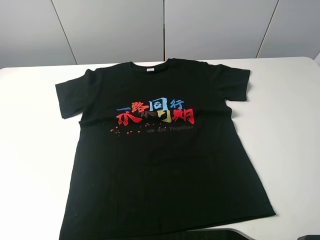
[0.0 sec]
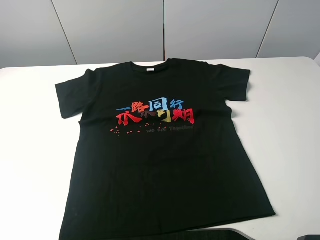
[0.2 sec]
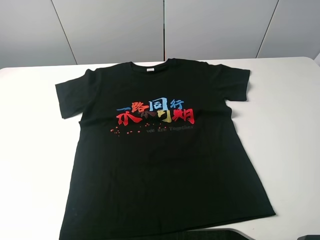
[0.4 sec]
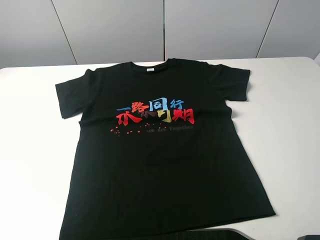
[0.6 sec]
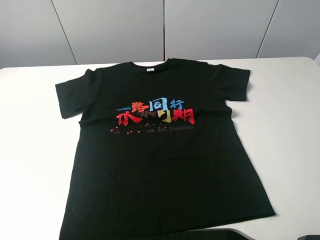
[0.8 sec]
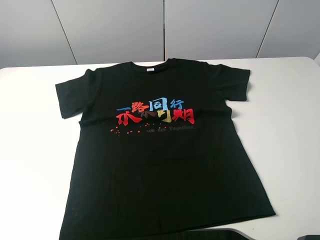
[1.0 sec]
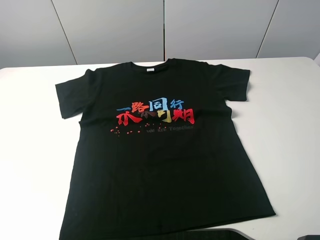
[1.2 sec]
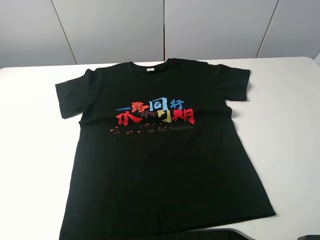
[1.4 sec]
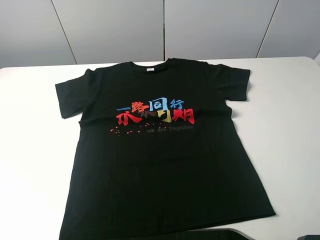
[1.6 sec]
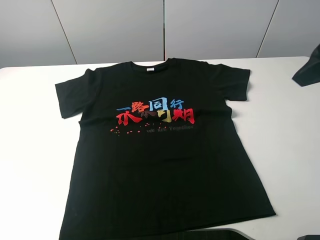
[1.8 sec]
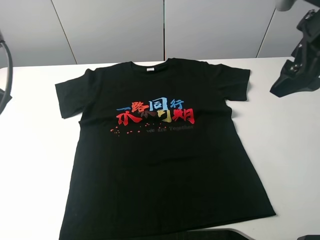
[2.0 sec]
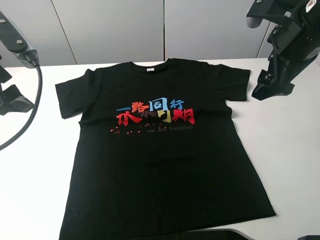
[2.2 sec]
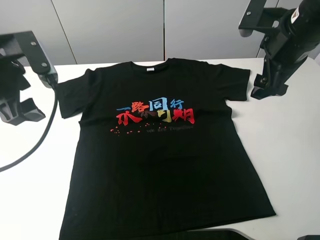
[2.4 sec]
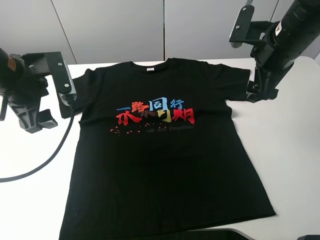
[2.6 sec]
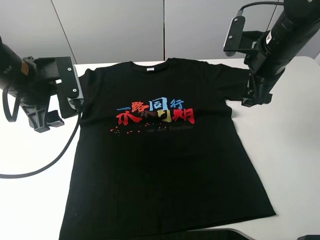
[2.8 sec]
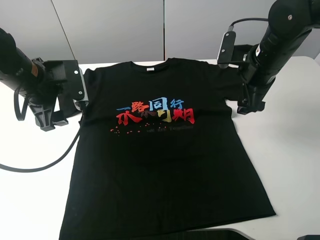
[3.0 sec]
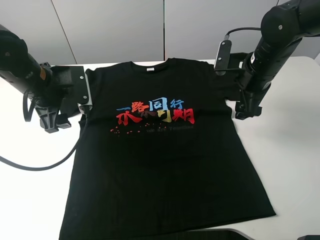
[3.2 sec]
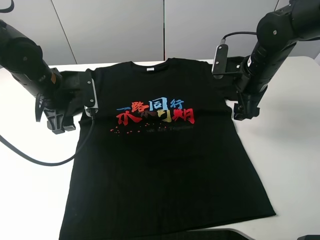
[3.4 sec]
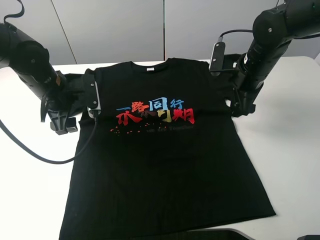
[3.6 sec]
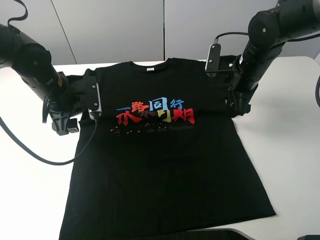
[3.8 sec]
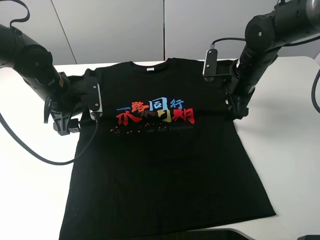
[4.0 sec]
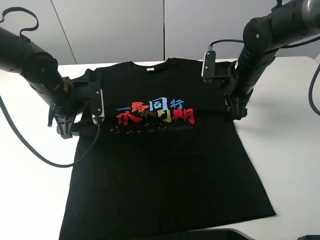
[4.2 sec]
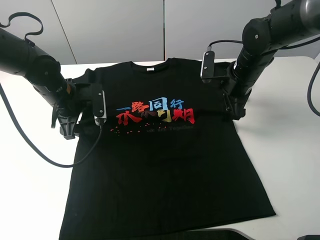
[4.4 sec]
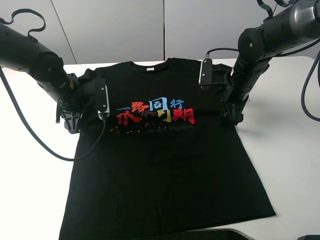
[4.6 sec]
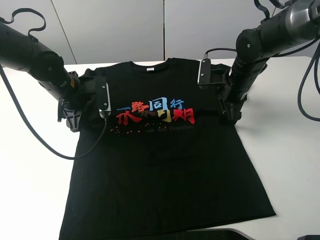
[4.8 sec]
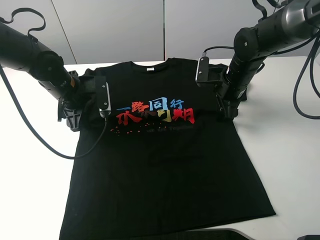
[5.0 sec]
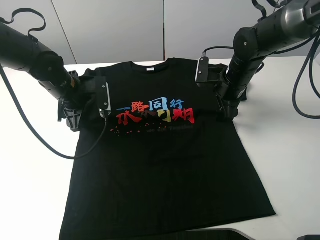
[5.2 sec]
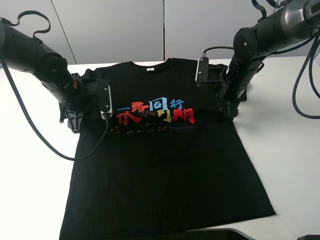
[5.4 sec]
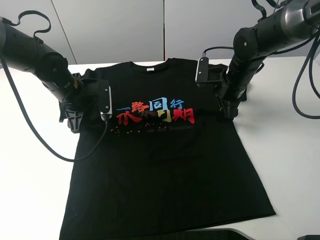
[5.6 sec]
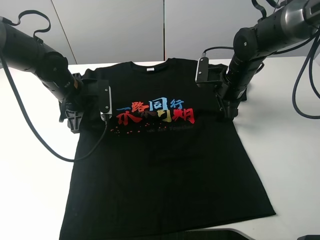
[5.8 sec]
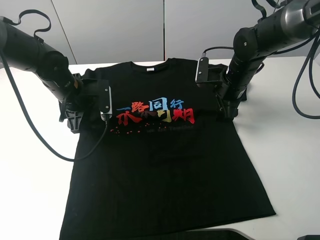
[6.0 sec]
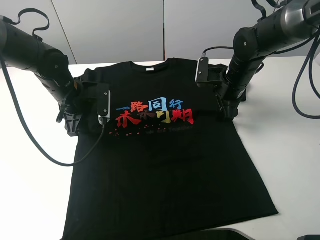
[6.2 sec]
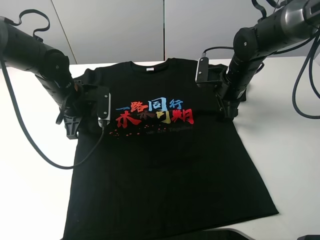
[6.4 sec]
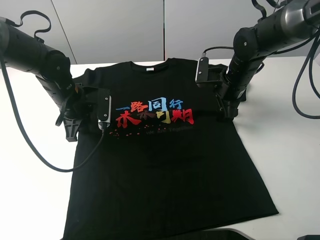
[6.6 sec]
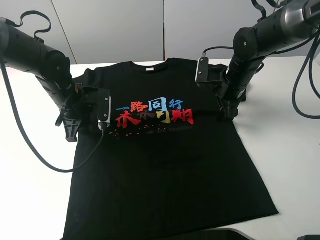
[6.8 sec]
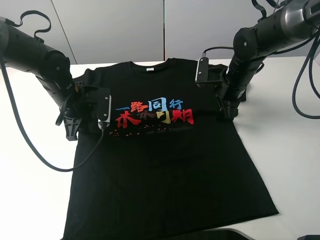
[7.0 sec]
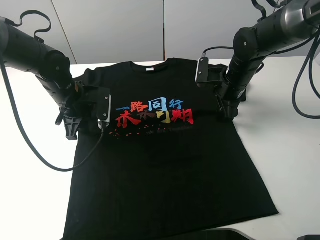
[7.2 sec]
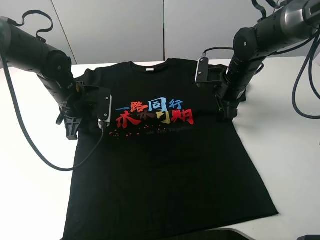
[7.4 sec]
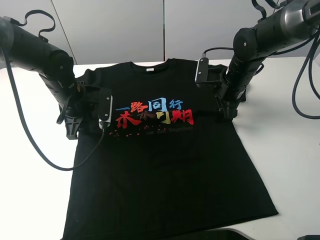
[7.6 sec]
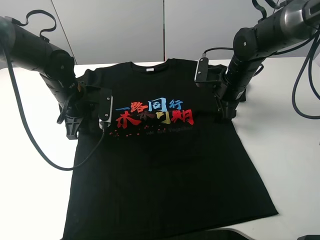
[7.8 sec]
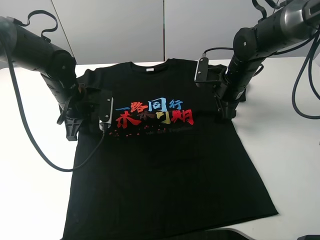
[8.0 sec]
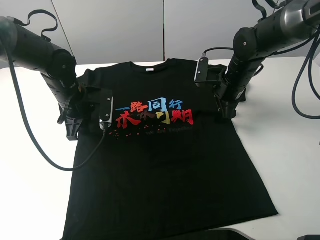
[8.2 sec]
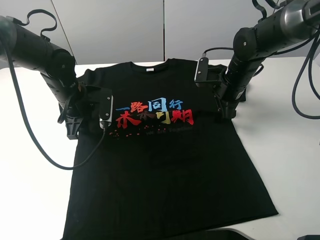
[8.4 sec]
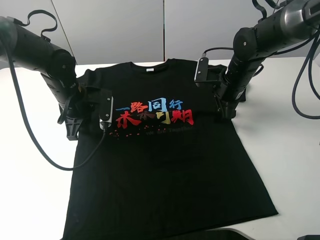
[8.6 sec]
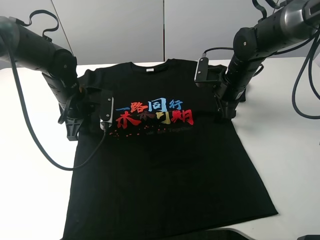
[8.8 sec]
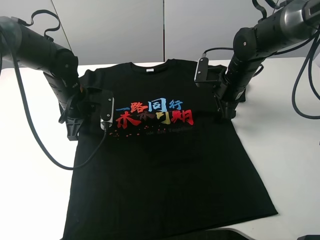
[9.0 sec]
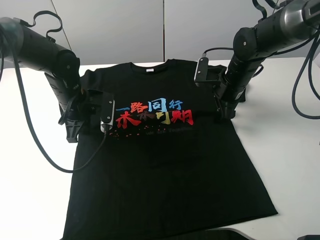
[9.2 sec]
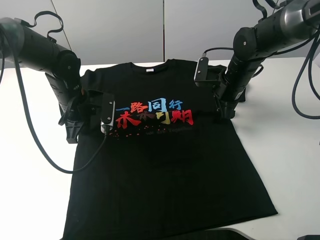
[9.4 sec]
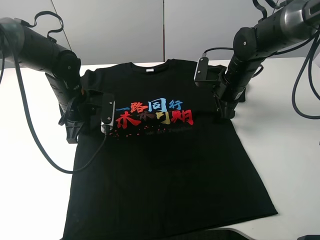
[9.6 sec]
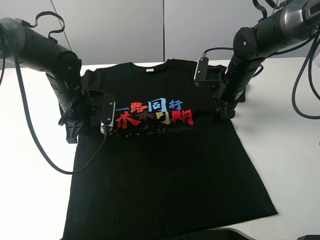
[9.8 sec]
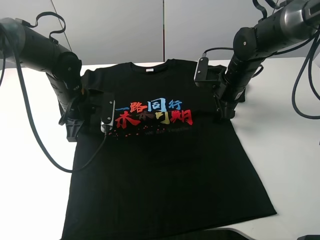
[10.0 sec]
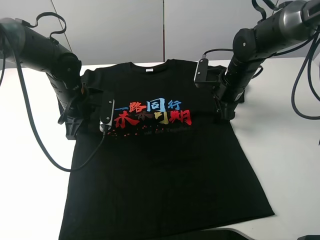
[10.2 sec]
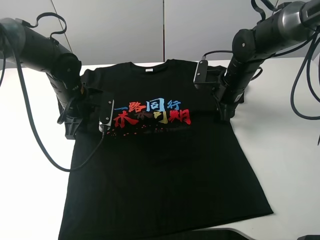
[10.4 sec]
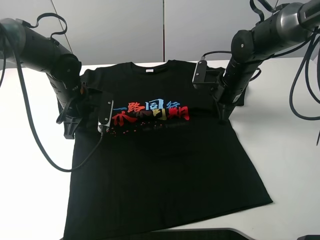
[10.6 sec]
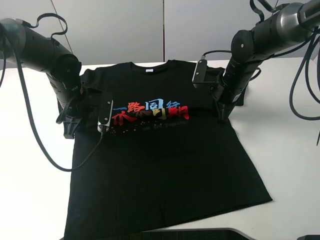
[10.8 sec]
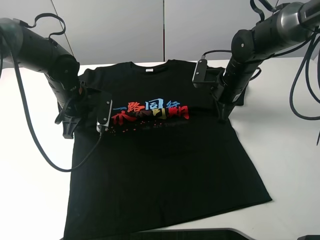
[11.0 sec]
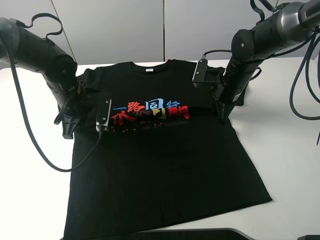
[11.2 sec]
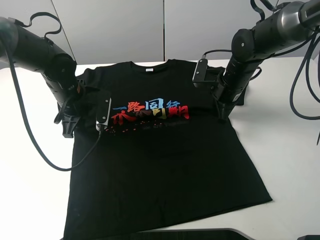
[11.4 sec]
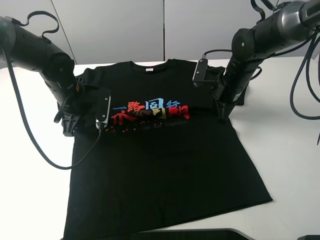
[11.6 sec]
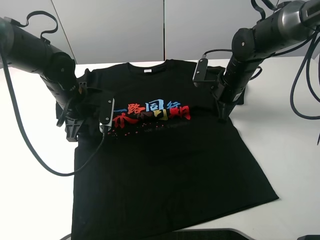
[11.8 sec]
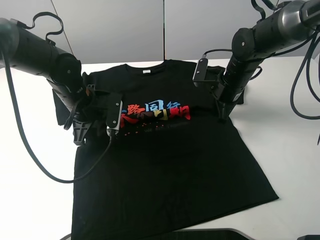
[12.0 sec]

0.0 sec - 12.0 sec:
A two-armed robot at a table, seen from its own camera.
Task of the whole recording: fold the clothes on the table.
Step, 0.0 sec - 12.0 sec: Lift the black T-shirt with the left gripper.
1.6 sec - 3.0 sec: The right gripper moves downward, forward and to the left, some 25 cm; the left gripper goes approximately 25 cm forward, downward and to the right.
3.0 sec - 4.4 sec: The right gripper changes place by some 5 cm; the left gripper moves downward, approximately 5 cm.
4.4 sec - 9.0 sec: The grippers stay close to where they were, moving slightly.
9.0 sec - 10.4 sec: The left gripper closes, then opens again.
10.4 sec - 12.0 sec: The right gripper closes.

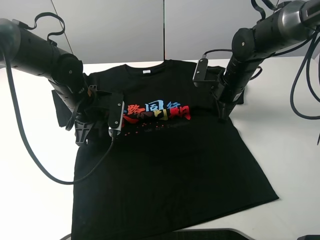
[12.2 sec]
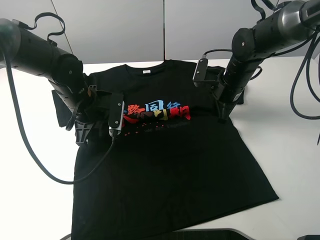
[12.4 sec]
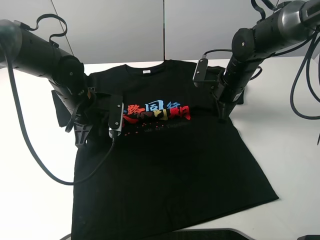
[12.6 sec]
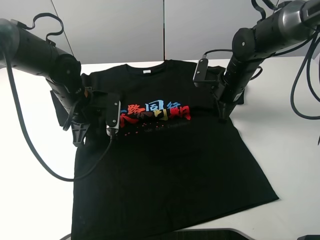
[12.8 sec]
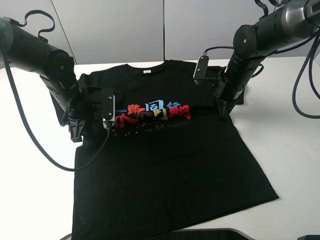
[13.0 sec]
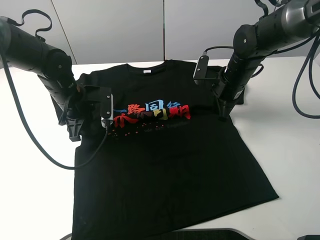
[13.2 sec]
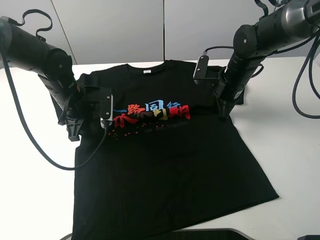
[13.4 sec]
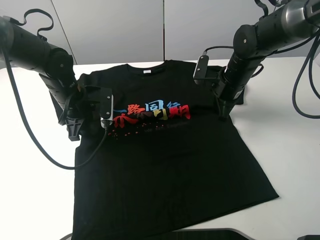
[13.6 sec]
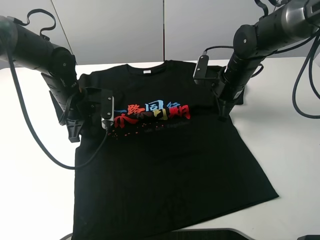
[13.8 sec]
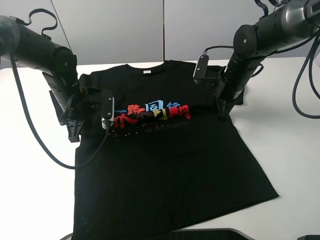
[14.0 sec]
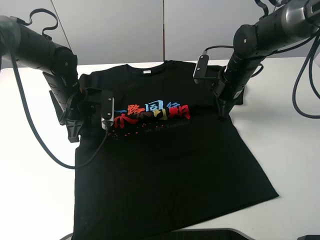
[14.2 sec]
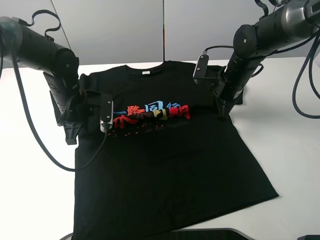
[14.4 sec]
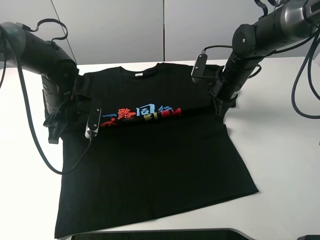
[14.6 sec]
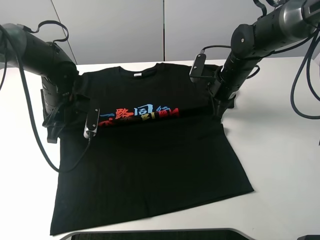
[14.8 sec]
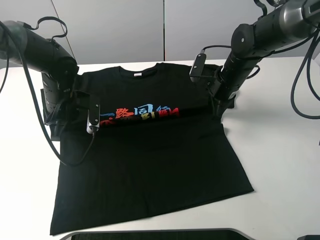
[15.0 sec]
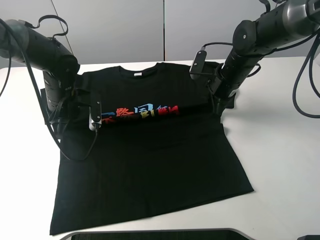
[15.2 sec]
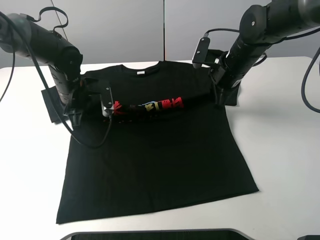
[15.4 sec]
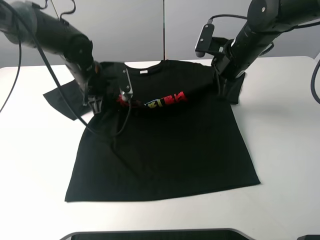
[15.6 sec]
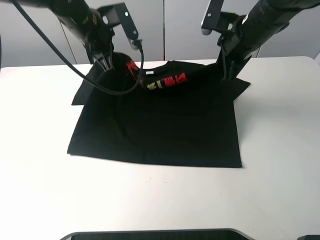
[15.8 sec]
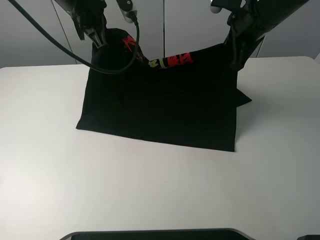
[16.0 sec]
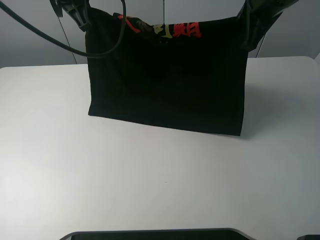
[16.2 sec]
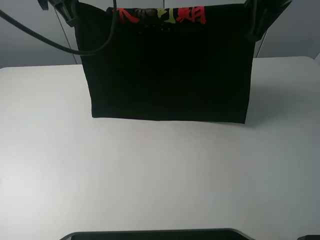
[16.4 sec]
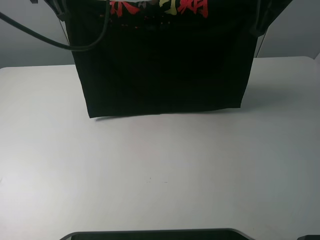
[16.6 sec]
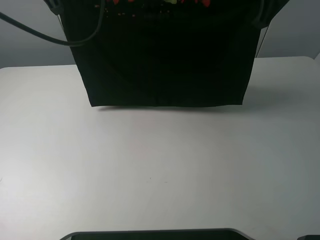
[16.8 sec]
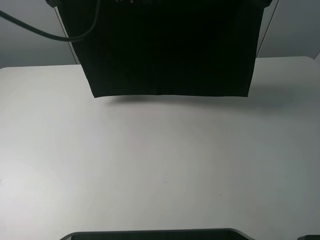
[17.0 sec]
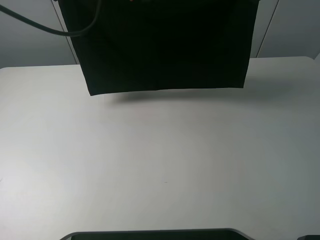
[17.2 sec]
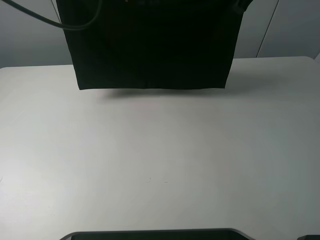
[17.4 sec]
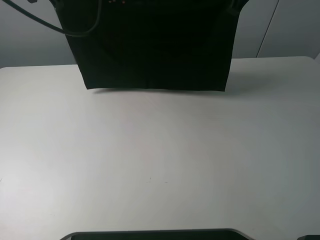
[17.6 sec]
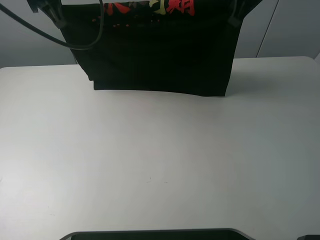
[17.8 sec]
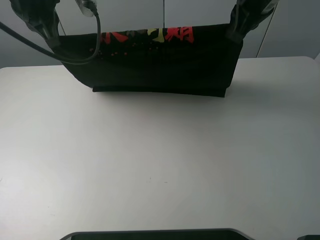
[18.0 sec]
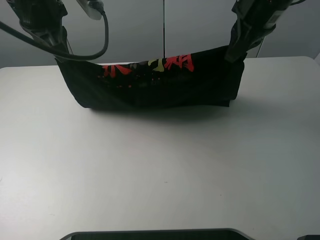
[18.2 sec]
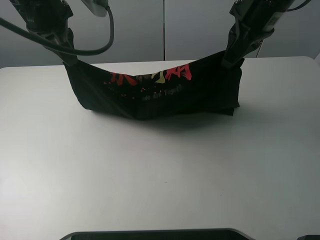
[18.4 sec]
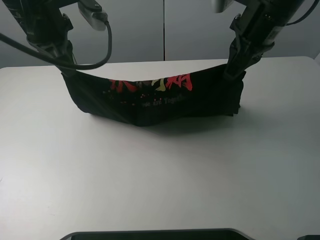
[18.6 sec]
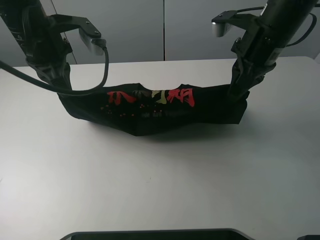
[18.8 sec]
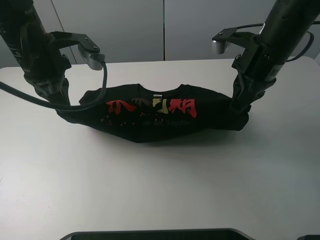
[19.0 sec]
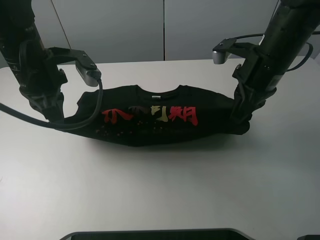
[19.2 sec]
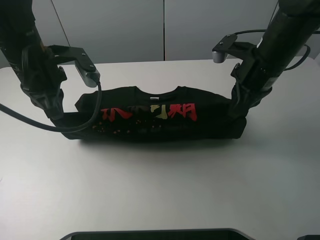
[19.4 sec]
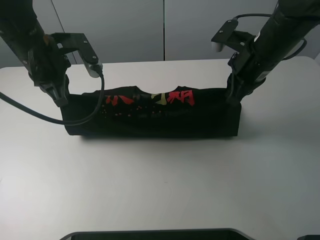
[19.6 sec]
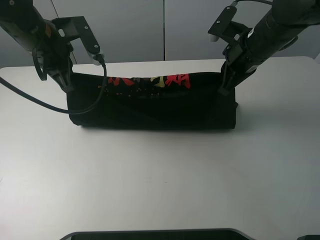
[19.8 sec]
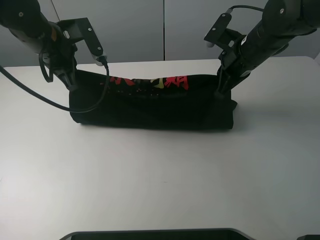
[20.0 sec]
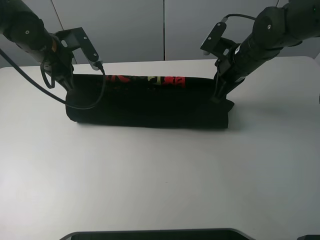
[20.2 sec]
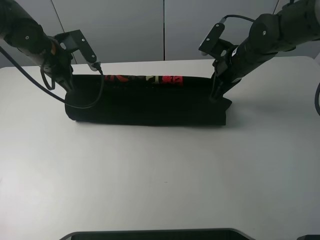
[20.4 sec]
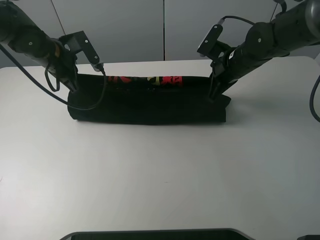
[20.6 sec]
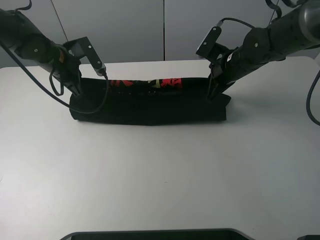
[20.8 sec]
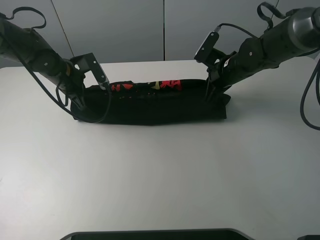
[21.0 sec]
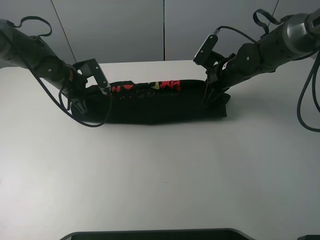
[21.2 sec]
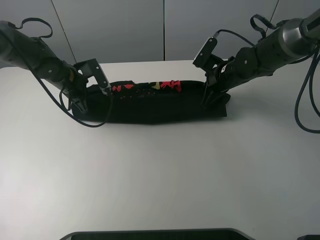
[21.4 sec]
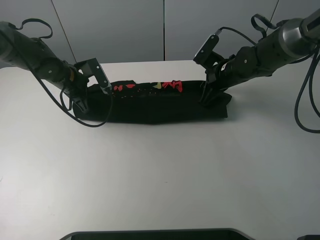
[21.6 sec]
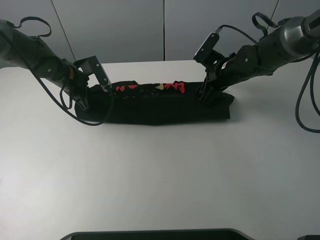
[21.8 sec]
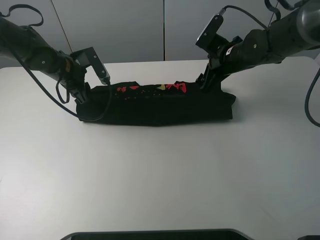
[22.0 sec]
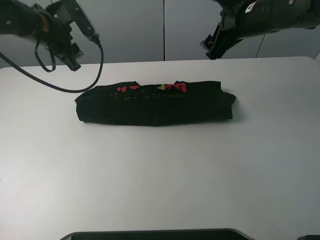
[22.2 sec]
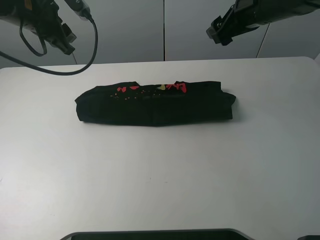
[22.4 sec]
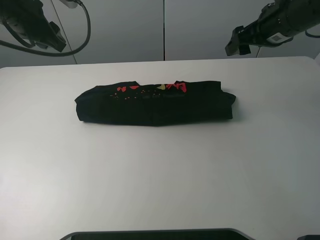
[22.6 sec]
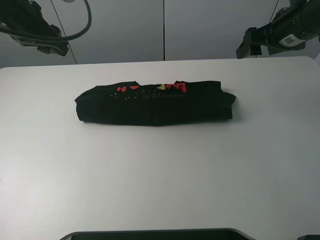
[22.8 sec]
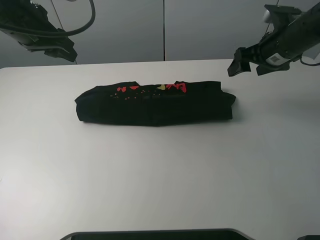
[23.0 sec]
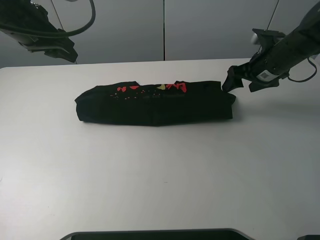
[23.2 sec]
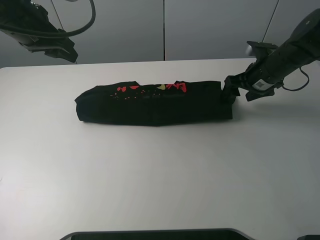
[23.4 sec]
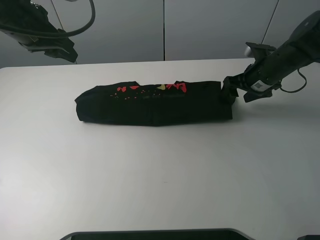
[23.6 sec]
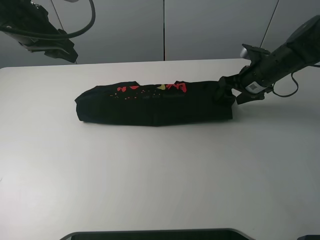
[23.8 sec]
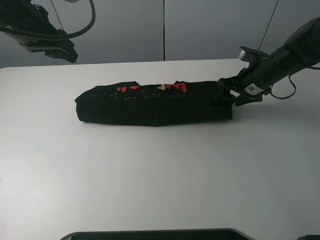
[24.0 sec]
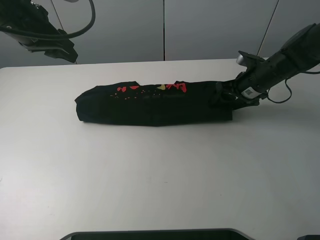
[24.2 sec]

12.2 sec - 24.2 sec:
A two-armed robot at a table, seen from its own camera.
Task of the whole recording: fold the clothes on the table.
Step, 12.2 sec - 21.4 sec: Fold the black T-shirt downward with the left gripper.
12.2 sec - 13.8 sec: The grippers stay close to where they were, moving slightly.
13.8 sec - 15.2 sec: The left gripper closes its fingers.
15.2 sec - 16.6 sec: The two grippers go roughly 25 cm upward.
16.6 sec - 18.2 sec: The left gripper ends up approximately 5 cm from where it was.
18.2 sec - 19.8 sec: The grippers both shift downward by roughly 10 cm.
19.8 sec - 21.2 sec: The right gripper heads downward, covering roughly 10 cm. The left gripper goes some 15 cm downward and forward.
21.2 sec - 22.6 sec: The left gripper goes some 20 cm upward, and opens its fingers; the right gripper moves upward and to the right, approximately 15 cm, and opens.
22.6 sec - 24.2 sec: The right gripper heads downward, covering some 15 cm.
